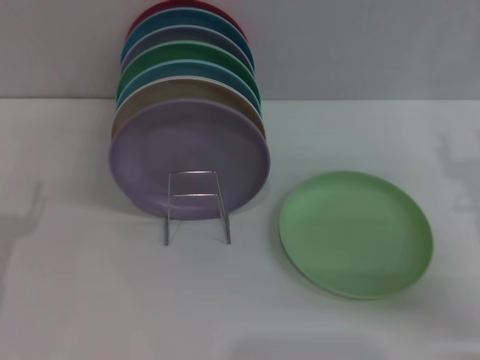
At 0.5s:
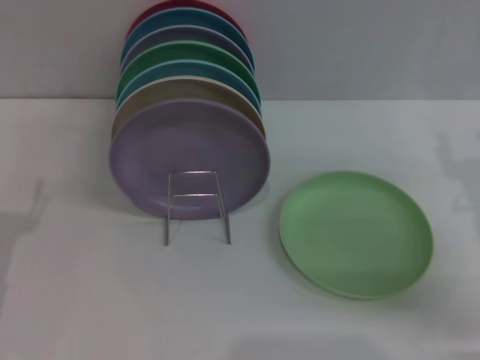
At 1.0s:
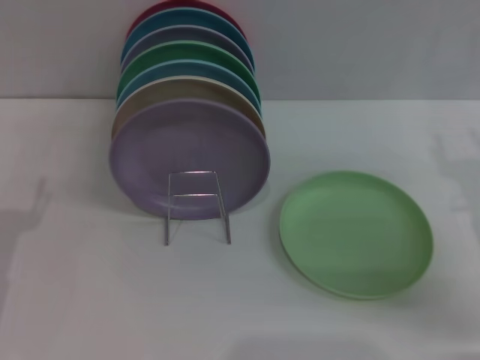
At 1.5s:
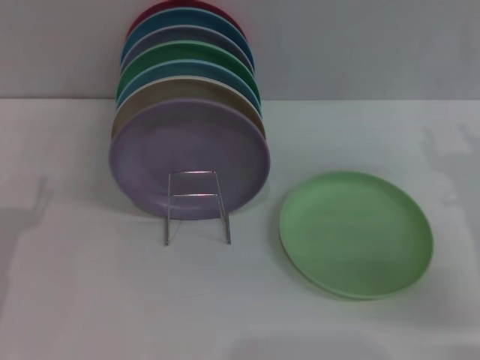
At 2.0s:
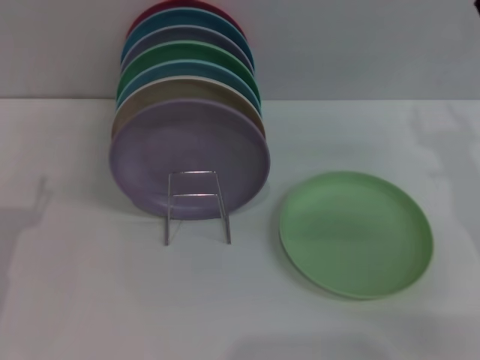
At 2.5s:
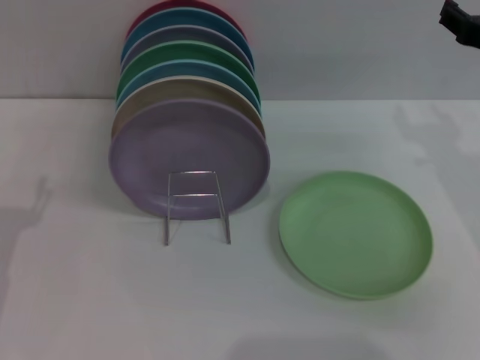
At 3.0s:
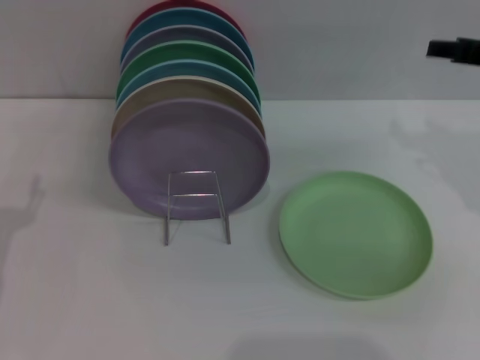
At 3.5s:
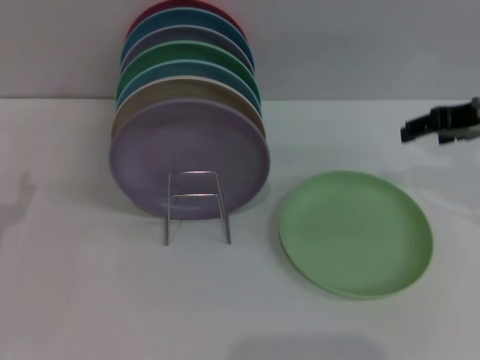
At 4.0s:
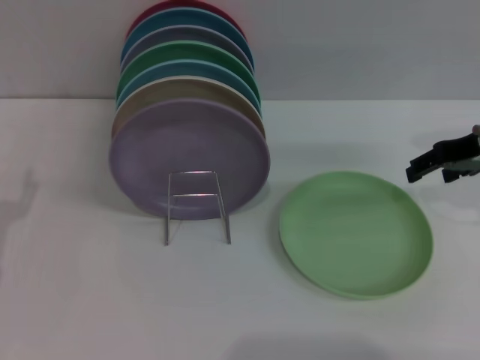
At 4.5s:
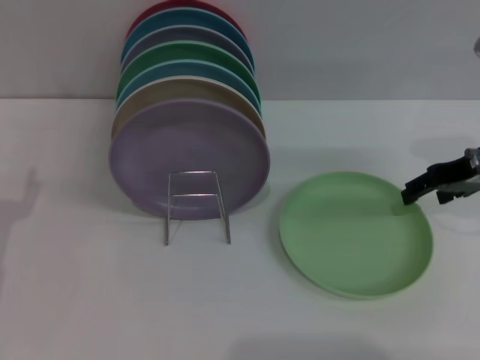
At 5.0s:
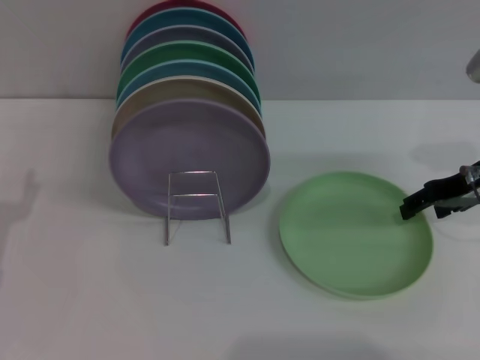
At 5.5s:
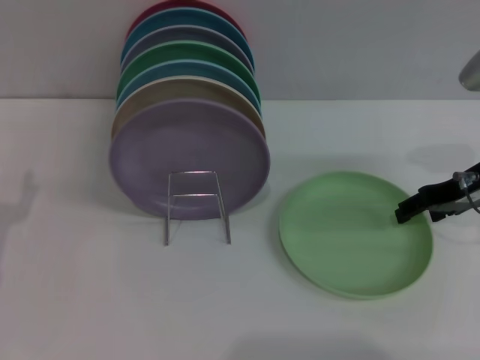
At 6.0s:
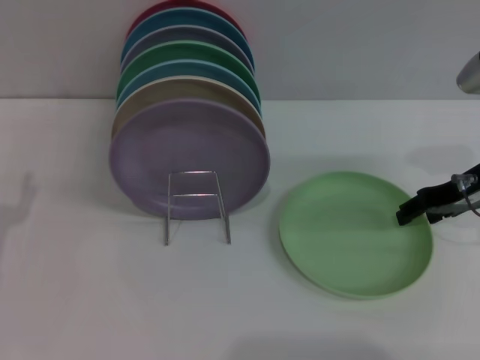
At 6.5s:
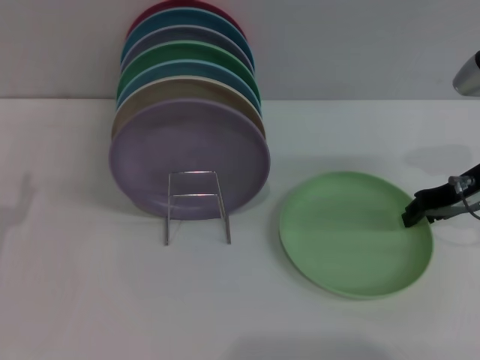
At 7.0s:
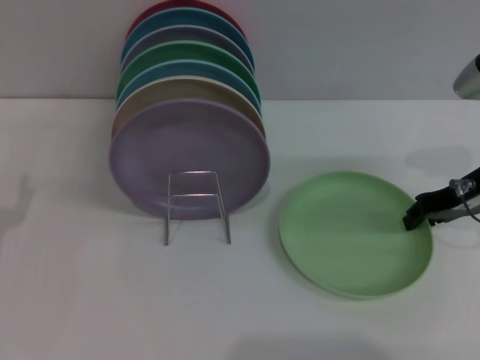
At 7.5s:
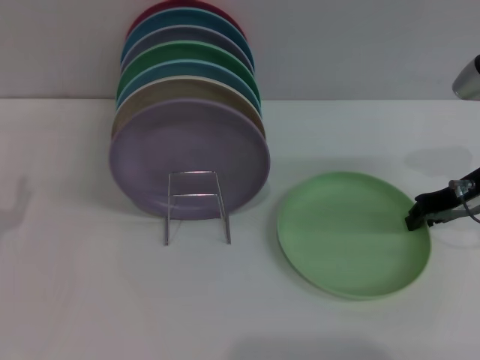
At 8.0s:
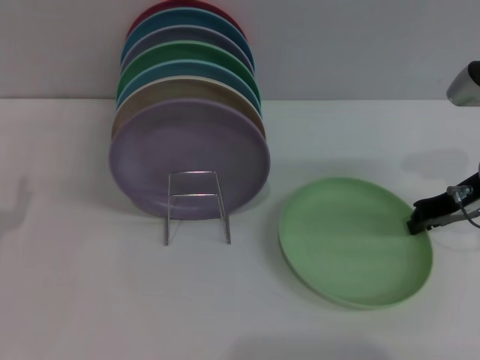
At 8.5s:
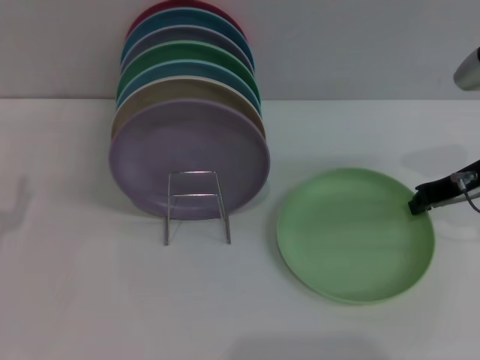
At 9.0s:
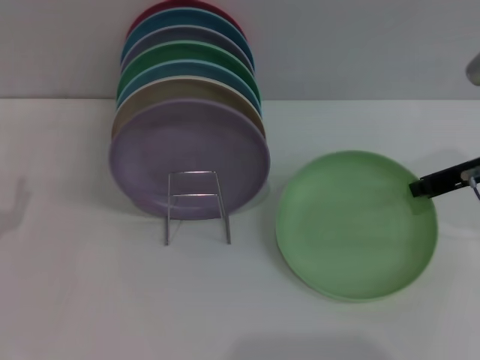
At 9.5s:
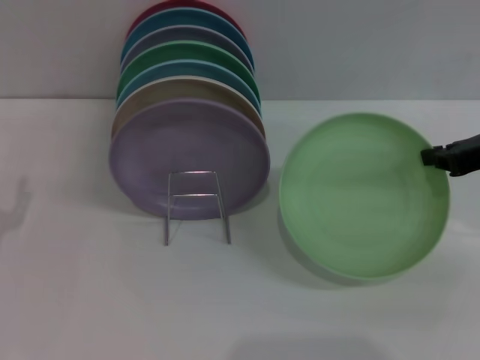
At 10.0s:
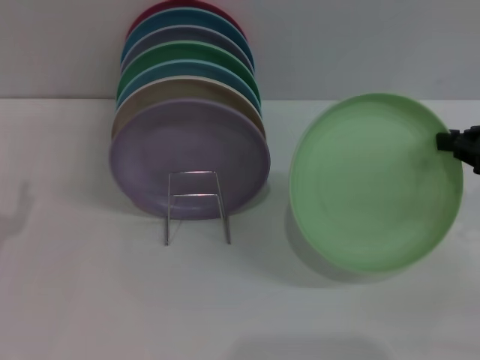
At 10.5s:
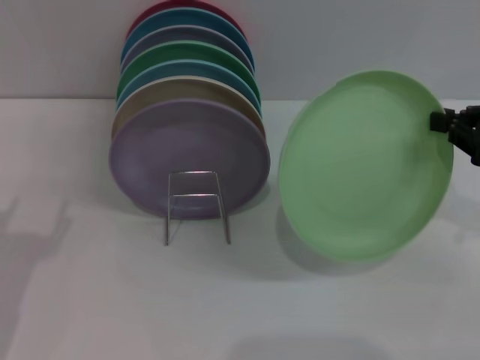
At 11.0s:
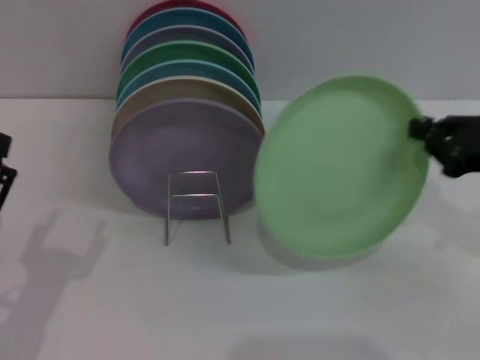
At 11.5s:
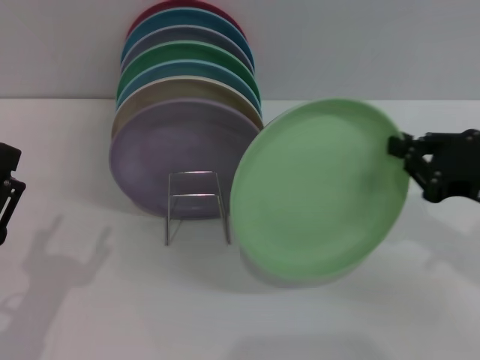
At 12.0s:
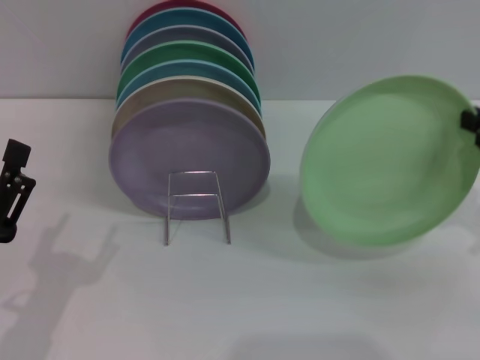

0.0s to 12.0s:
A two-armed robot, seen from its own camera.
Task of the whole recording: Grip the plate with one hand, pass it to the other, then set it on the shelf.
Step, 0.0s to 10.0s: Pick up the plate with the right gripper.
2.0s to 4.0s: The right gripper moves forward, some 5 cm.
4.0s to 6.0s: The right gripper travels downward by approximately 5 cm.
6.0s to 8.0s: The right gripper closes.
8.0s to 10.0s: The right gripper is displaced backward, upward and to the right by some 10 cm.
10.0s to 12.0s: The left gripper goes approximately 10 cm to the right and backward.

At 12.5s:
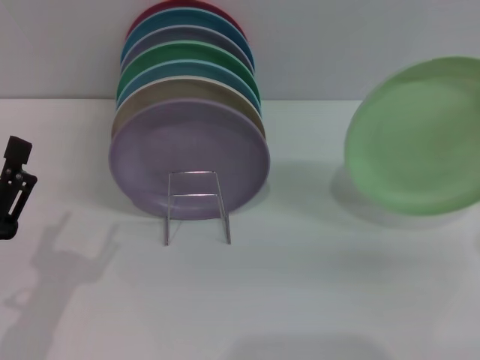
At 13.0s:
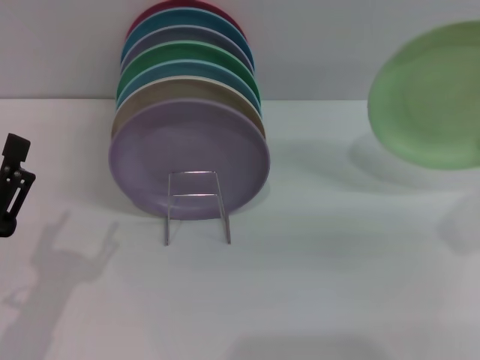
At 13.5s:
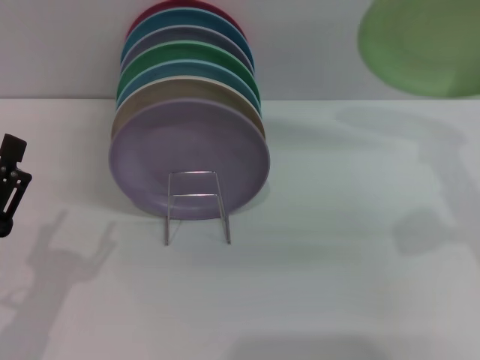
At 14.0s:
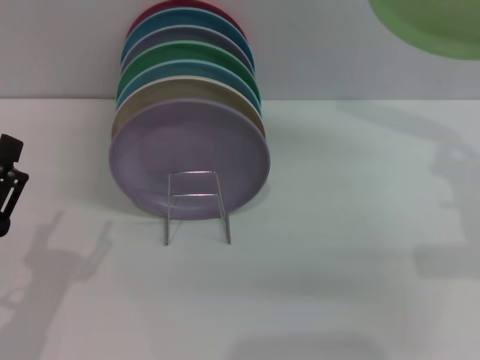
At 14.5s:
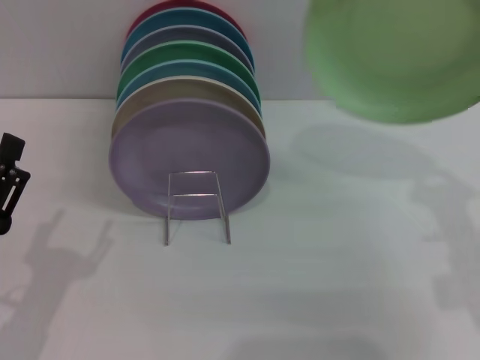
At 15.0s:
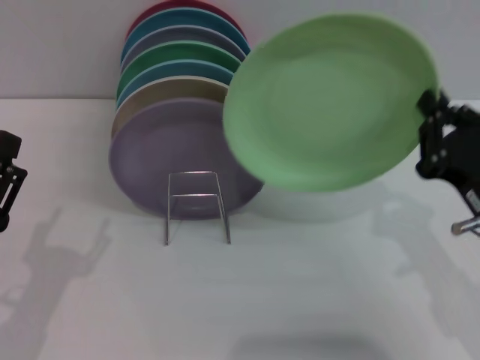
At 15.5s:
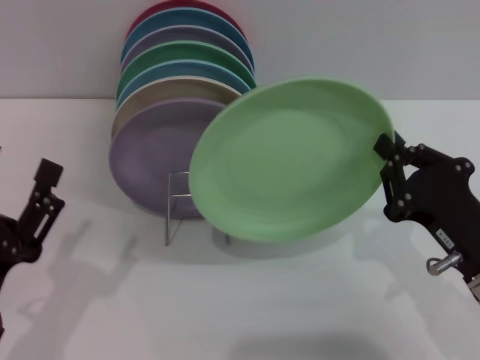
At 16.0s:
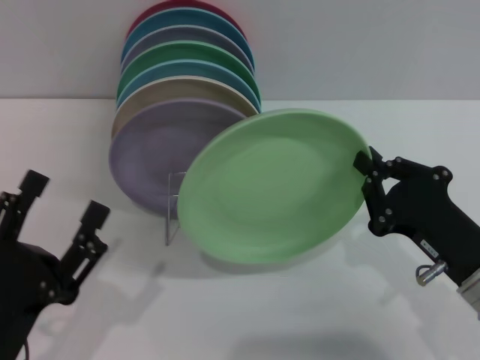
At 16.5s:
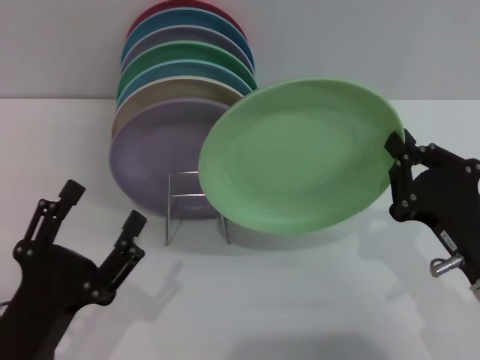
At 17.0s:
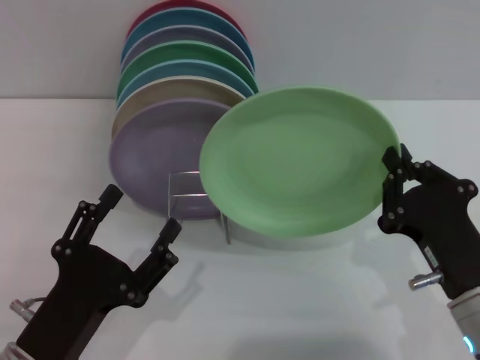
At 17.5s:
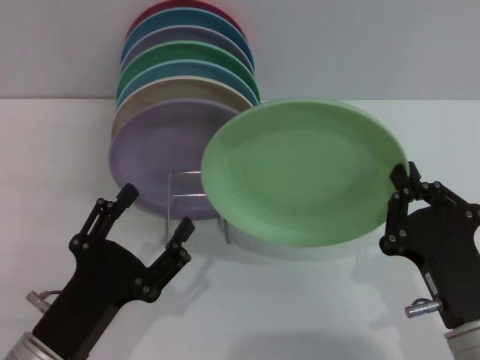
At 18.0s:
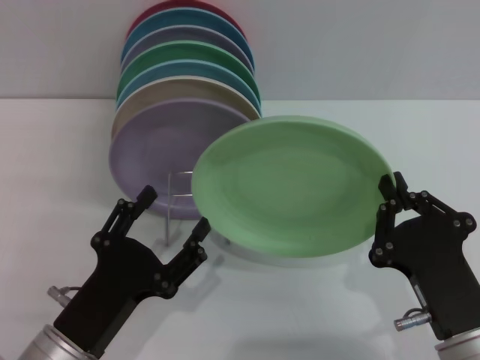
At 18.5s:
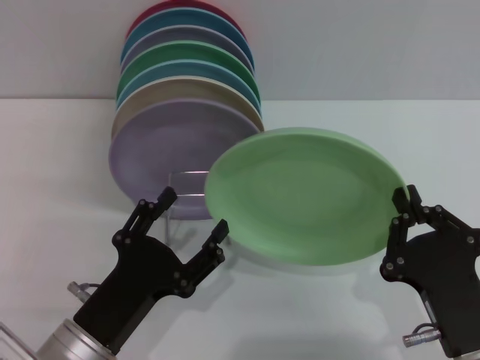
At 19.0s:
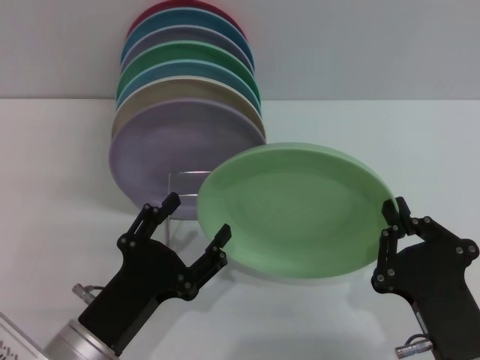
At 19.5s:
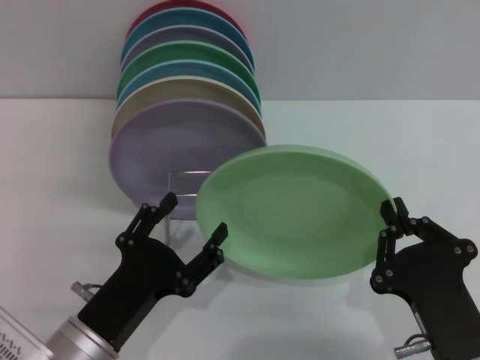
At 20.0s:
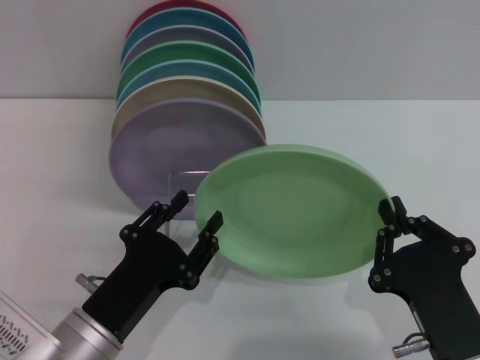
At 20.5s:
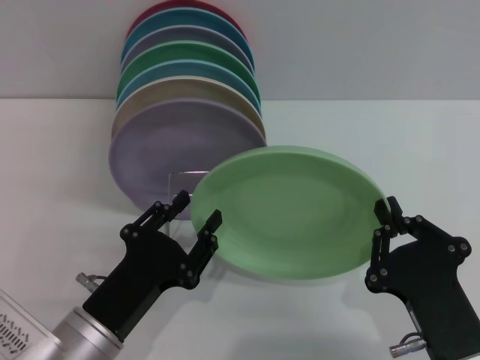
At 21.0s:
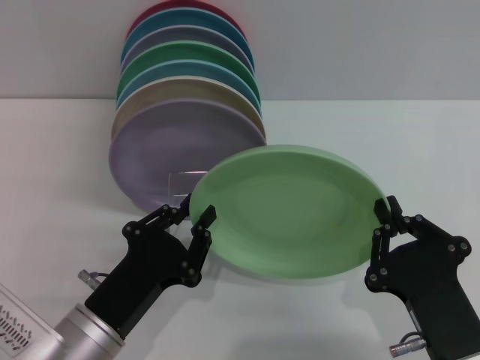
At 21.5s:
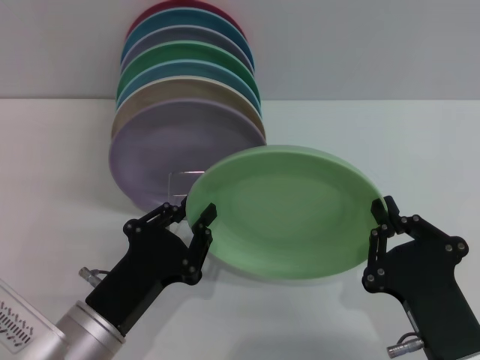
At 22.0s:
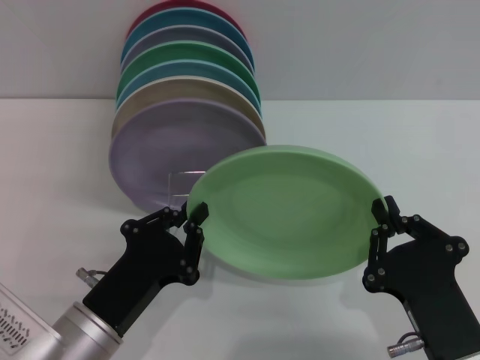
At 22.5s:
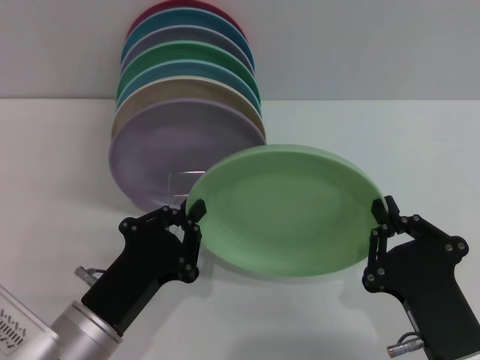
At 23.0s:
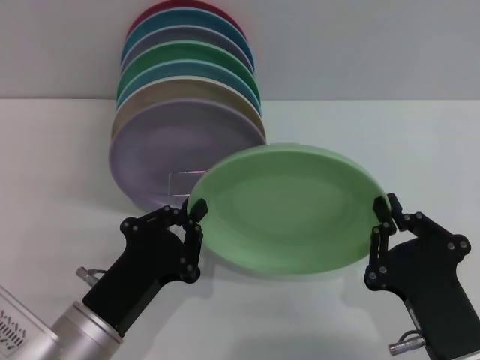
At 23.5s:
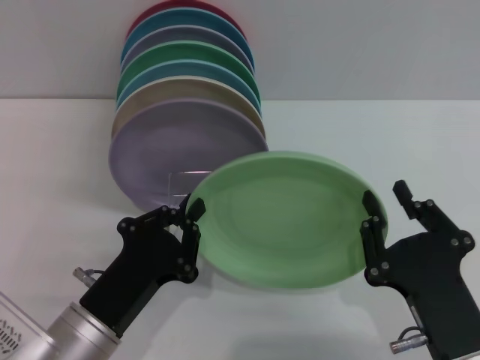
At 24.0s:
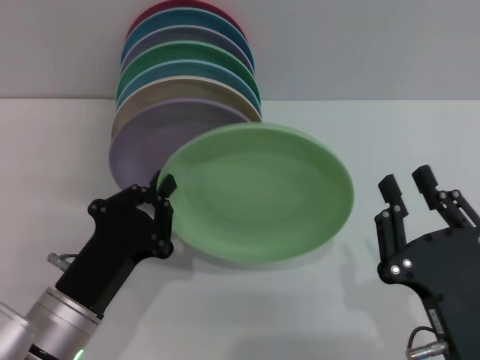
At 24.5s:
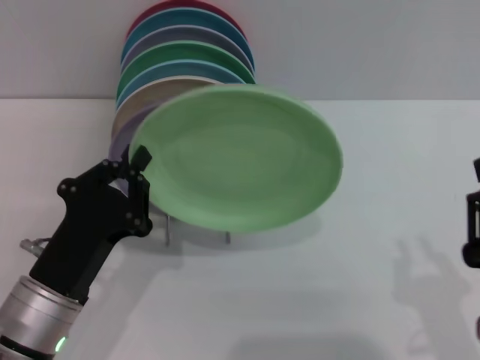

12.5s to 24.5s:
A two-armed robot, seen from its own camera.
Task of the whole recording: Grip the plate with one hand, pass it to the other, then set it on the shelf.
Step, 12.5s to 24.0s: Pass the plate from the right gripper to the left gripper.
12.5s to 14.5s: The right gripper shifts some 10 cm to the left and downward.
14.5s to 16.5s: The right gripper travels downward by about 5 cm. Meanwhile the left gripper shifts by some 5 cm.
16.5s to 18.5s: The right gripper is displaced backward by roughly 5 cm. Meanwhile the left gripper shifts by roughly 5 cm.
18.5s to 20.5s: The left gripper closes up.
20.5s to 22.5s: The left gripper closes.
22.5s to 24.5s: The right gripper opens its fingers.

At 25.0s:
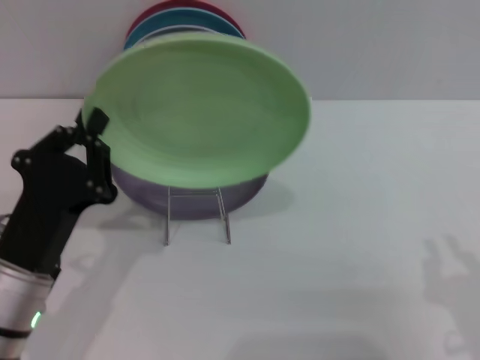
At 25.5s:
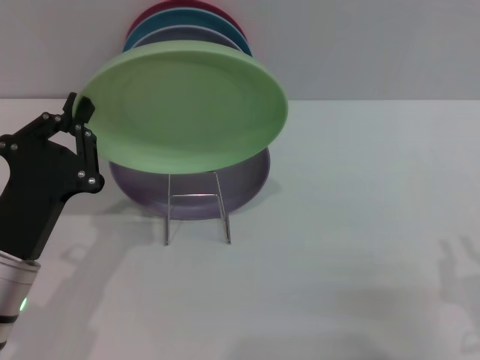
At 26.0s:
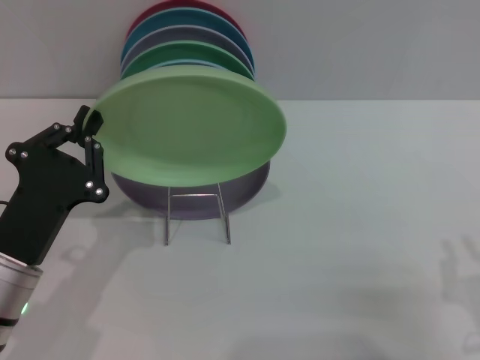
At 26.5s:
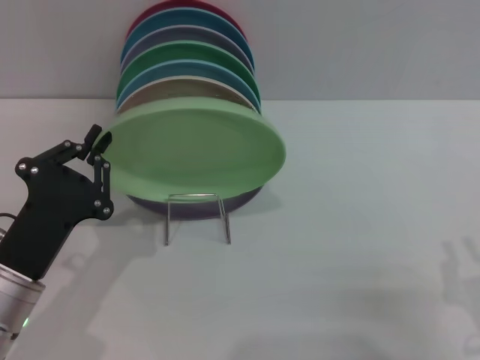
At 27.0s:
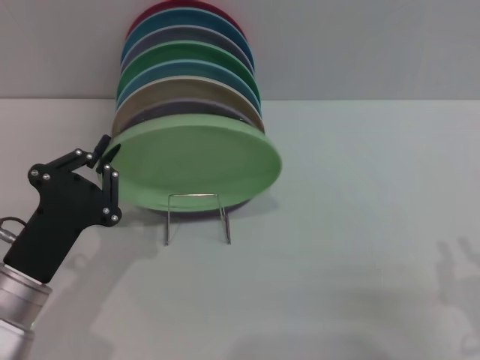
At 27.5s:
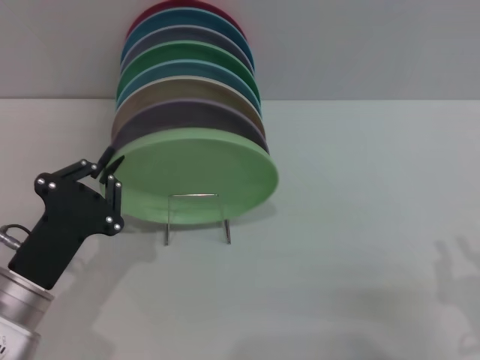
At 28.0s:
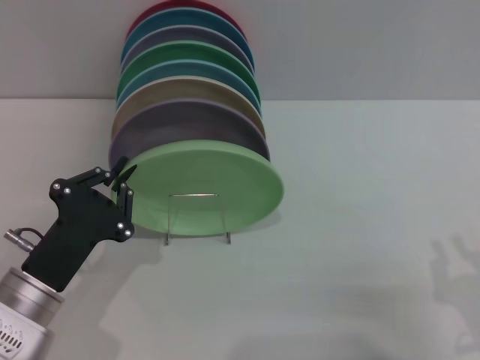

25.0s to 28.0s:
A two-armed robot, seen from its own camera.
Task of the whole recording: Grip the plate with one hand, pass it to the other, then set it on the shelf.
26.5s to 28.0s: The grippers move only a little.
